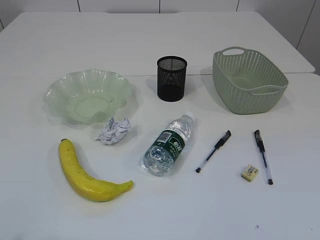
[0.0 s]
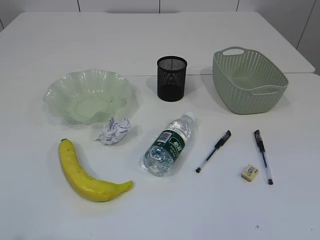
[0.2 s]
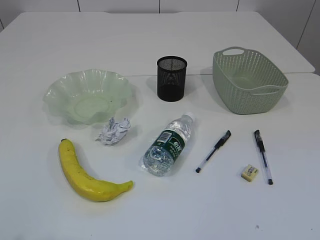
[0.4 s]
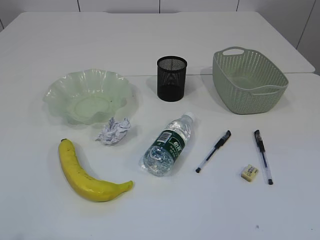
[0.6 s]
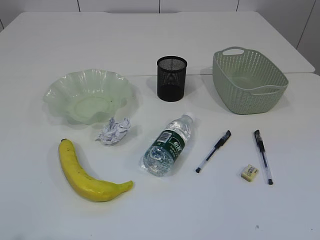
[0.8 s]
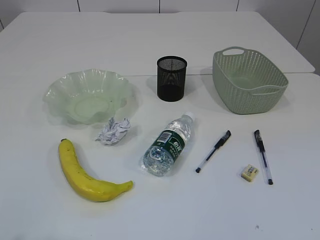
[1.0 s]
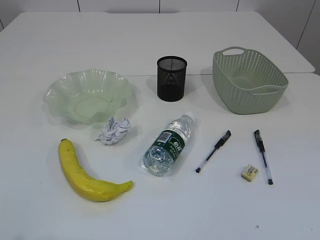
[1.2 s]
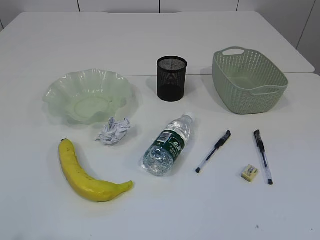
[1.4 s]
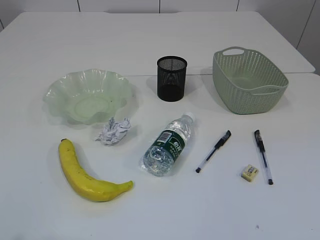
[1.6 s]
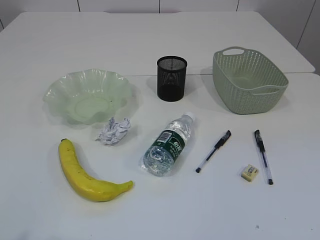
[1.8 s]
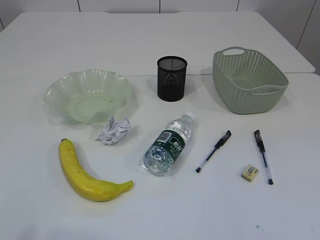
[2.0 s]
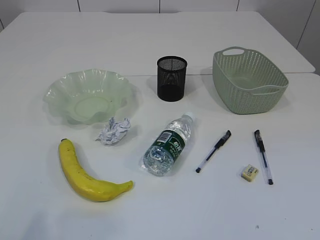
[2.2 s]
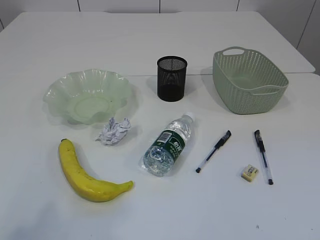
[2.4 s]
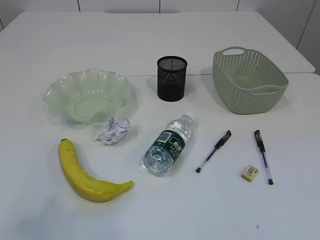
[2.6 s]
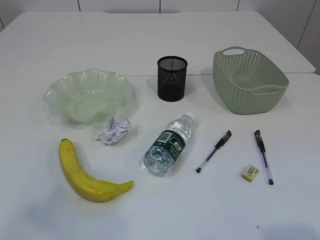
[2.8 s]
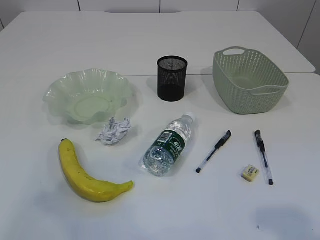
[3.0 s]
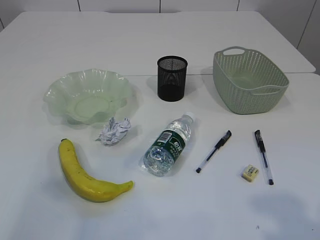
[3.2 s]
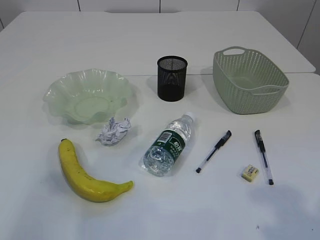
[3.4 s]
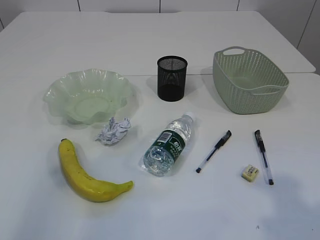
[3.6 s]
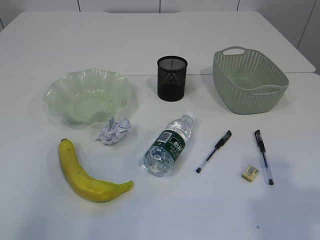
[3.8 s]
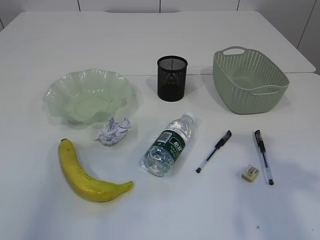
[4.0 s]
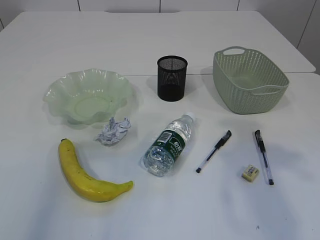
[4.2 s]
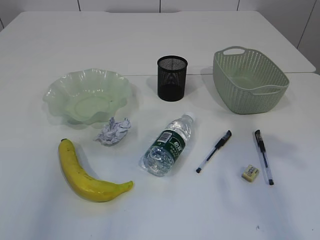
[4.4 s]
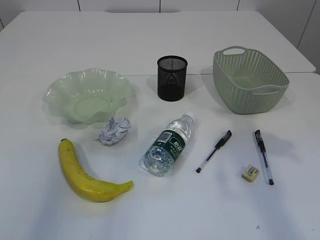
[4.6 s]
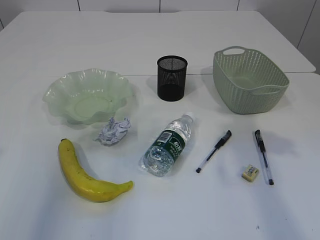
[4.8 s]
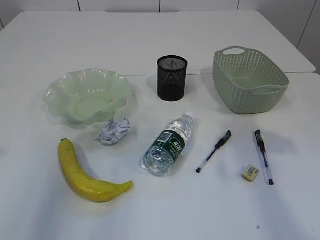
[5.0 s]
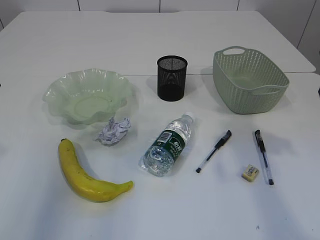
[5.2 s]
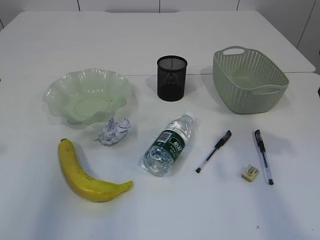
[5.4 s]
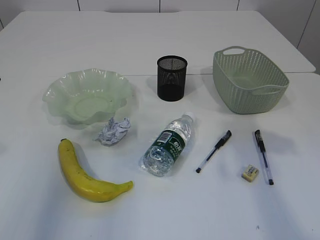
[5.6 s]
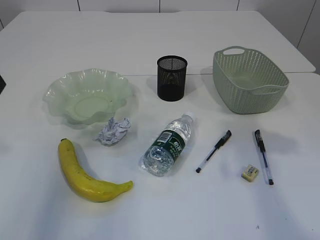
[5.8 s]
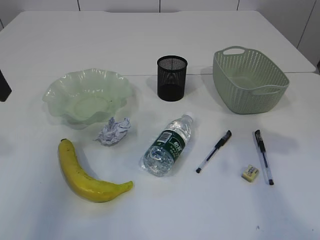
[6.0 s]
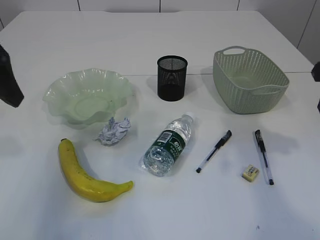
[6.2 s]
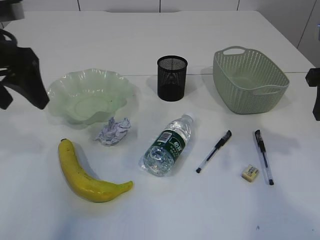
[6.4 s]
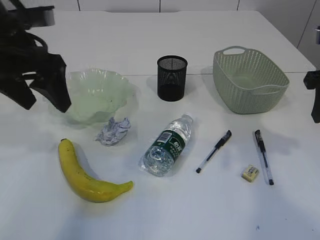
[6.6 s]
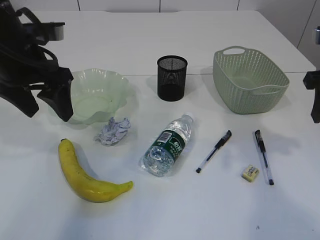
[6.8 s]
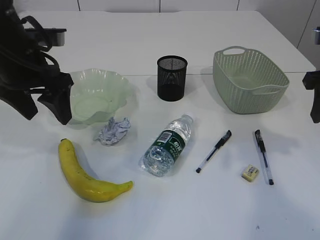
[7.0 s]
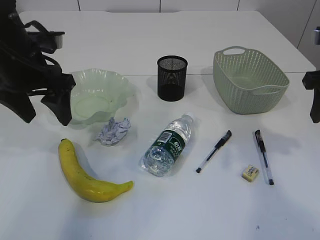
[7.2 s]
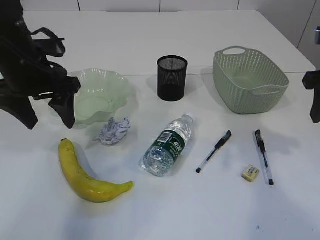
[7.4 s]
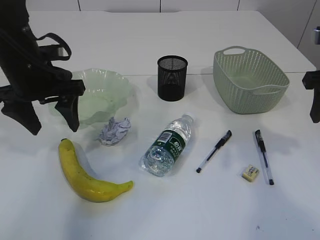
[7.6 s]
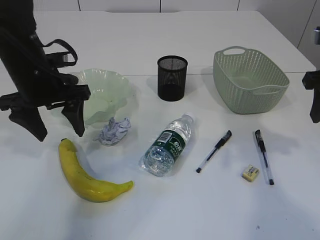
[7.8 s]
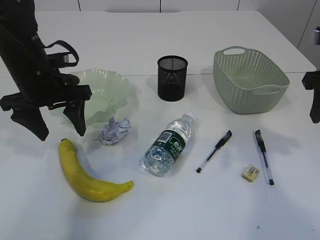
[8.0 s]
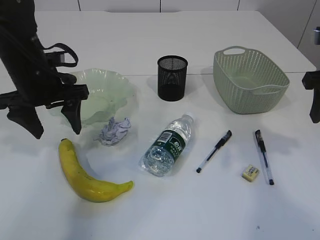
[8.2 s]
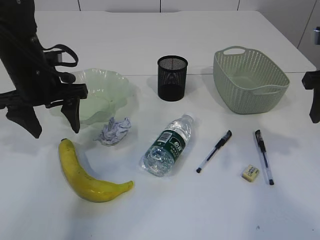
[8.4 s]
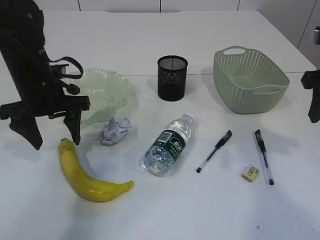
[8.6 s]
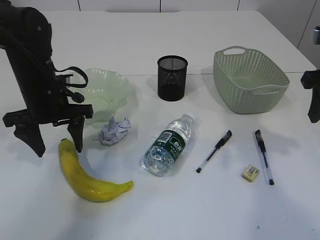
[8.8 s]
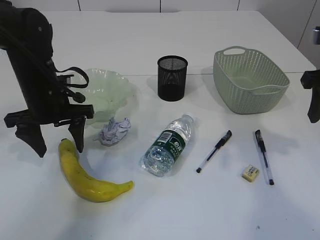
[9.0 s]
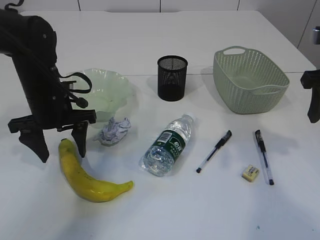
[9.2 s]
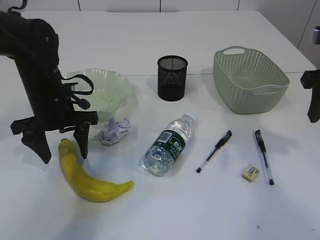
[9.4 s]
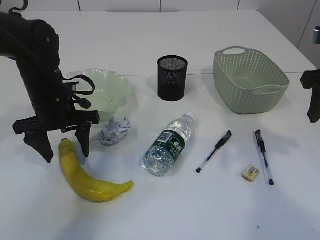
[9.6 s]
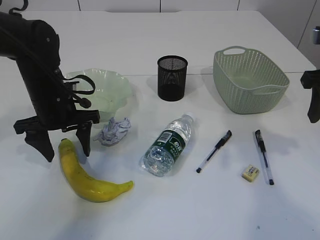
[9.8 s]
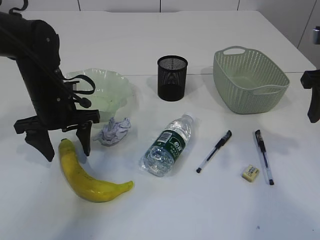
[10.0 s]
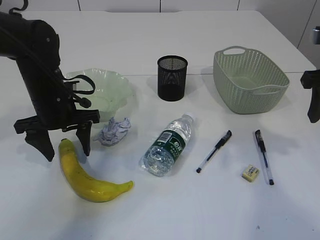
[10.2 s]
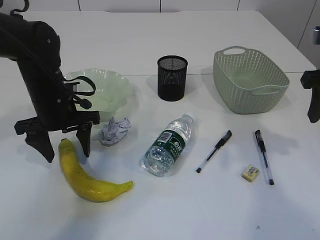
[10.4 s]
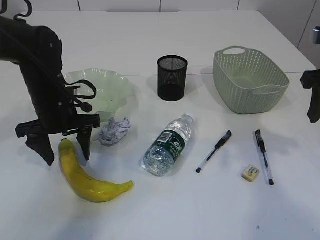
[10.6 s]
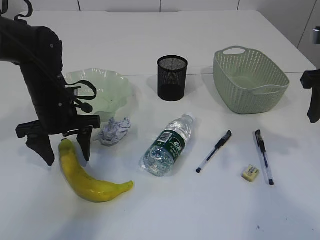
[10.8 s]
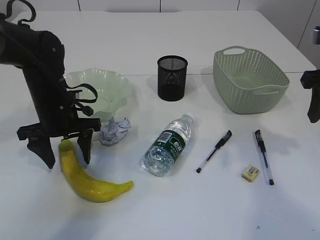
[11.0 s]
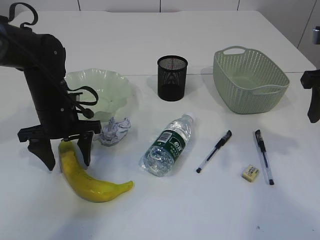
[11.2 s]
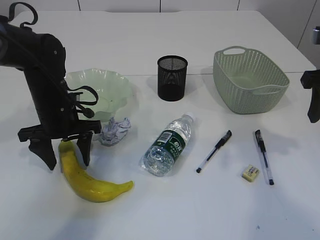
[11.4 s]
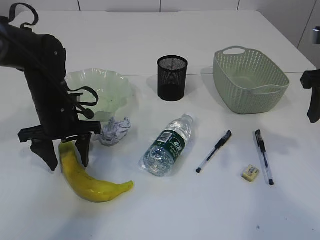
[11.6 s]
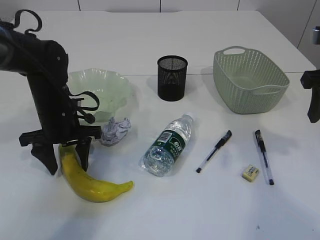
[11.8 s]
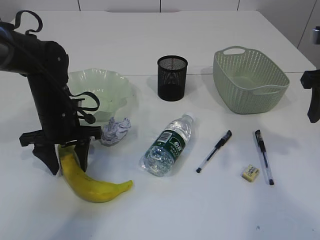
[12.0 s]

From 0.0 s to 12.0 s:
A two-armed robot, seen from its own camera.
From 1.6 s to 3.0 s: The left gripper shifts about 15 cm forward and upward.
From 3.0 s to 4.4 s: The right gripper travels forward by some 20 cm. Meanwhile the left gripper travels forward by approximately 15 cm.
From 6.0 s to 7.6 s: The left gripper heads downward, forward and to the right, covering approximately 15 cm.
From 7.6 s to 9.0 s: The left gripper is displaced downward by roughly 5 cm.
From 9.0 s to 12.0 s: There are only small adjustments of the grippers.

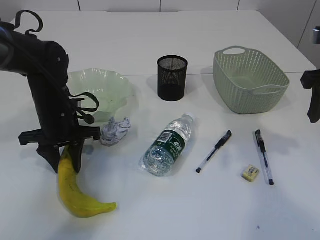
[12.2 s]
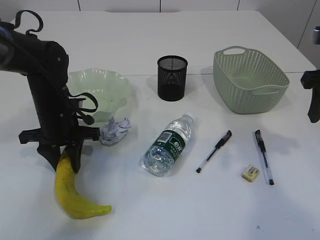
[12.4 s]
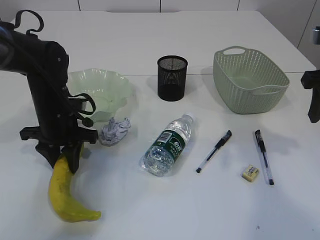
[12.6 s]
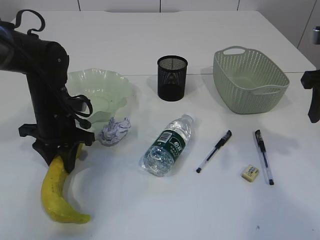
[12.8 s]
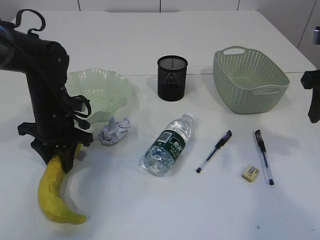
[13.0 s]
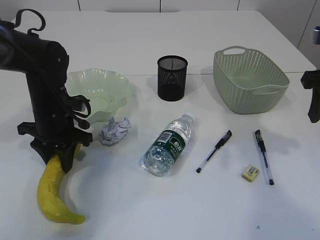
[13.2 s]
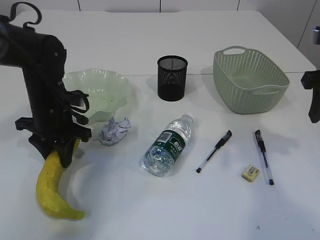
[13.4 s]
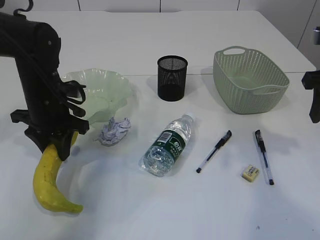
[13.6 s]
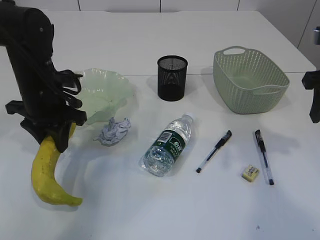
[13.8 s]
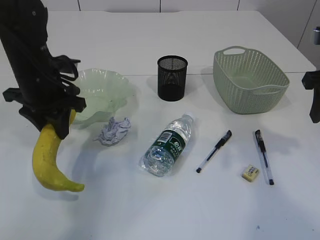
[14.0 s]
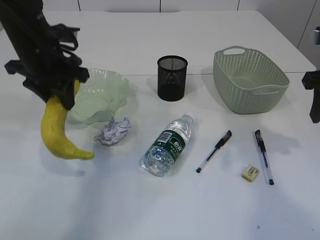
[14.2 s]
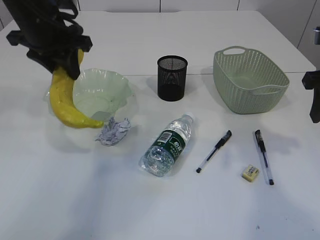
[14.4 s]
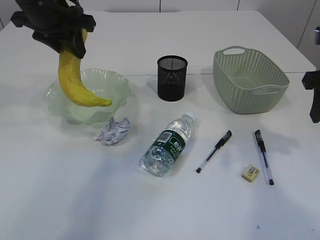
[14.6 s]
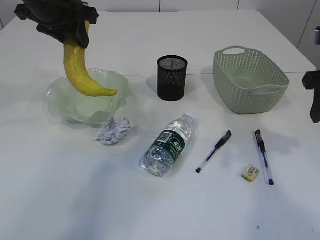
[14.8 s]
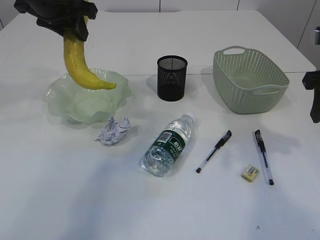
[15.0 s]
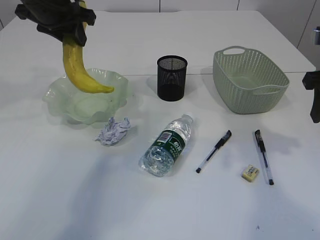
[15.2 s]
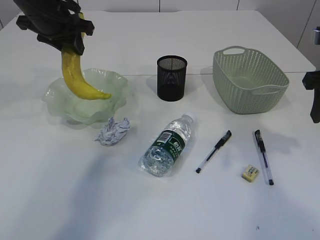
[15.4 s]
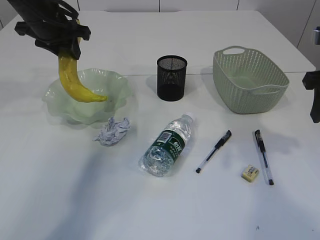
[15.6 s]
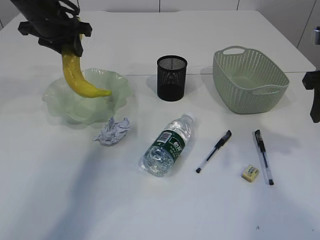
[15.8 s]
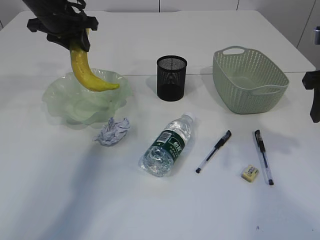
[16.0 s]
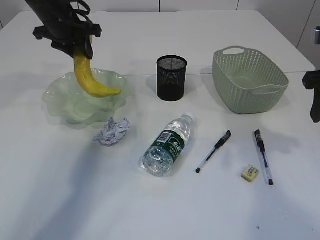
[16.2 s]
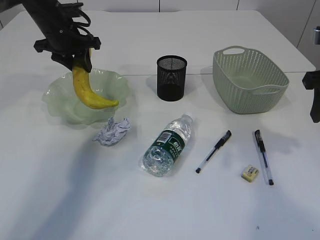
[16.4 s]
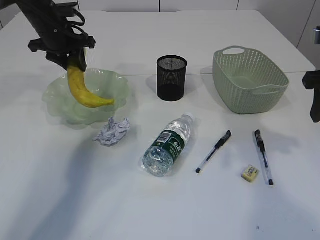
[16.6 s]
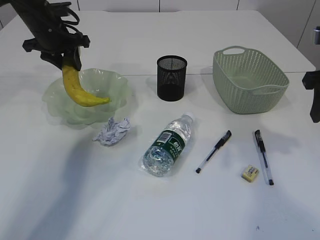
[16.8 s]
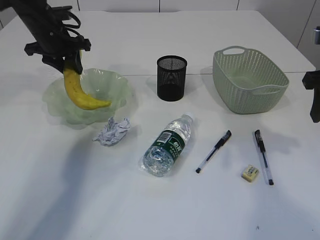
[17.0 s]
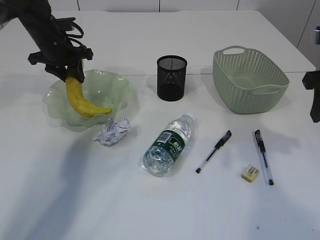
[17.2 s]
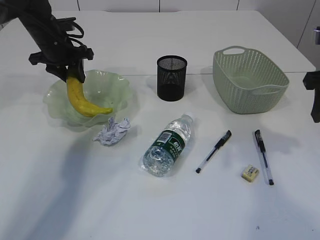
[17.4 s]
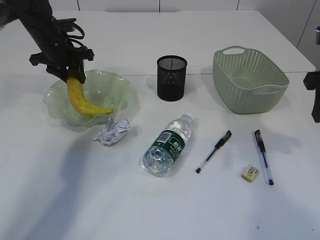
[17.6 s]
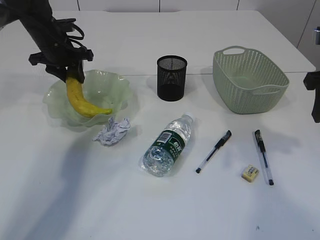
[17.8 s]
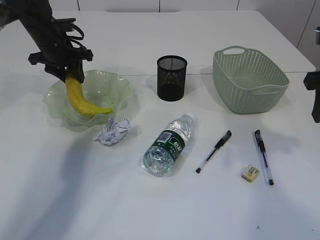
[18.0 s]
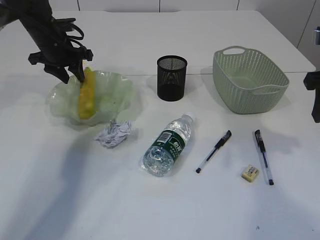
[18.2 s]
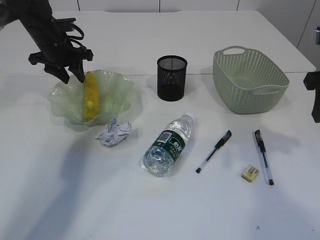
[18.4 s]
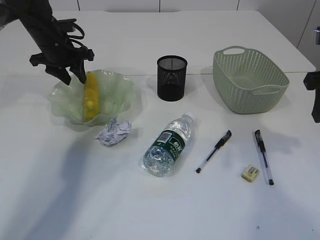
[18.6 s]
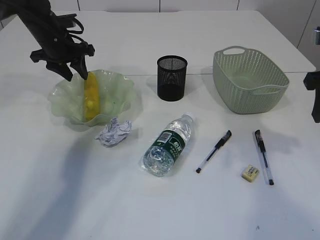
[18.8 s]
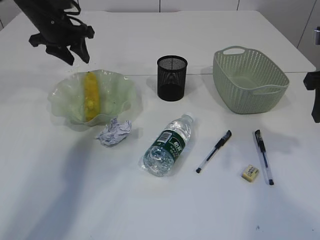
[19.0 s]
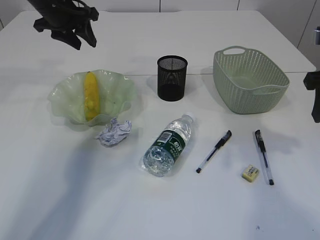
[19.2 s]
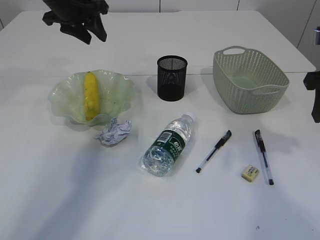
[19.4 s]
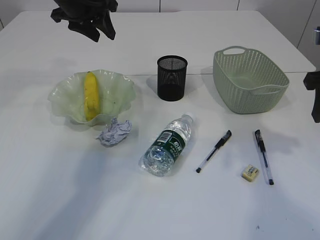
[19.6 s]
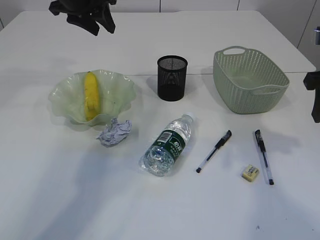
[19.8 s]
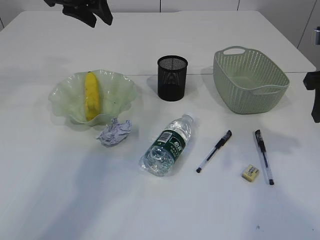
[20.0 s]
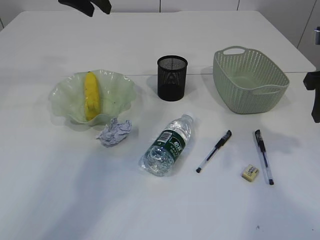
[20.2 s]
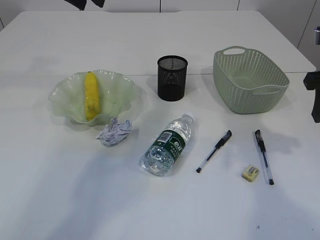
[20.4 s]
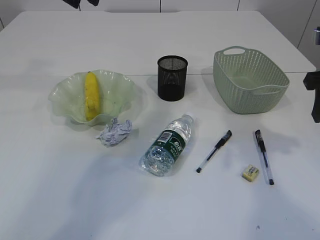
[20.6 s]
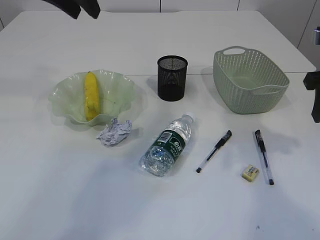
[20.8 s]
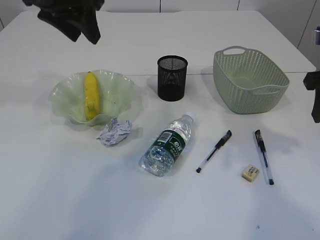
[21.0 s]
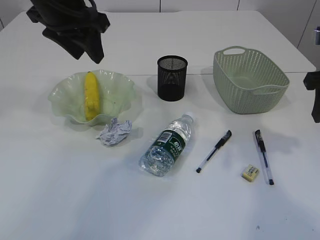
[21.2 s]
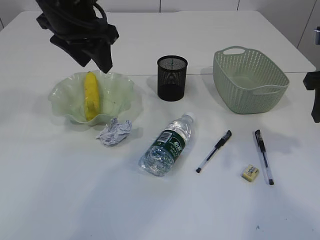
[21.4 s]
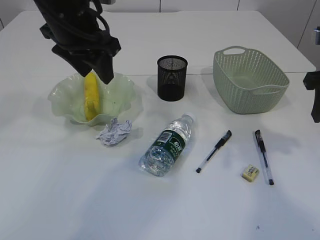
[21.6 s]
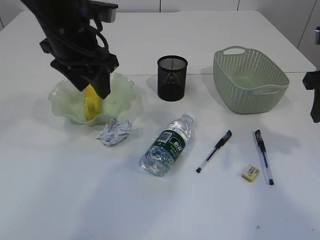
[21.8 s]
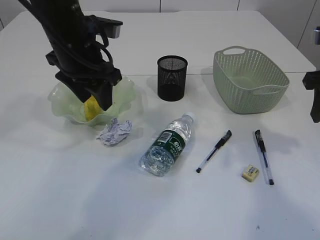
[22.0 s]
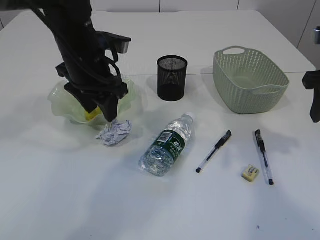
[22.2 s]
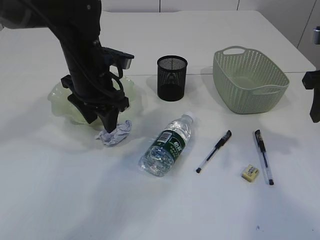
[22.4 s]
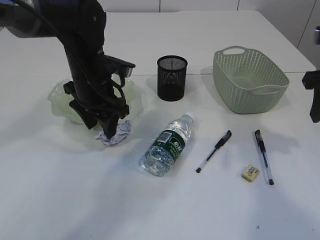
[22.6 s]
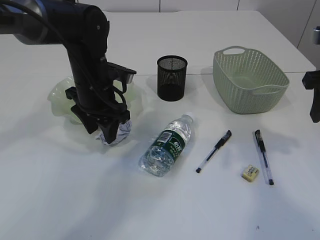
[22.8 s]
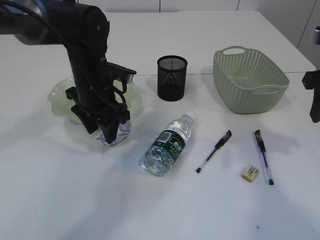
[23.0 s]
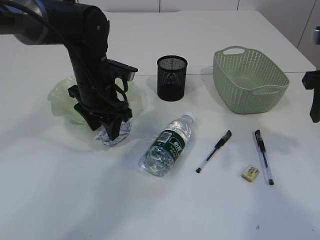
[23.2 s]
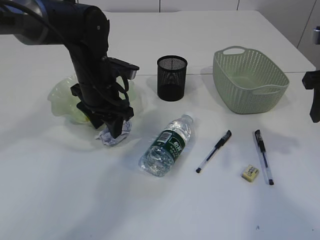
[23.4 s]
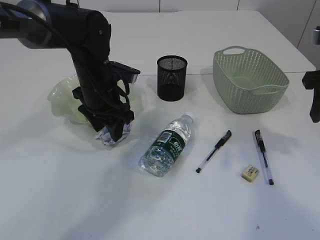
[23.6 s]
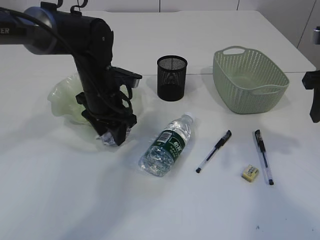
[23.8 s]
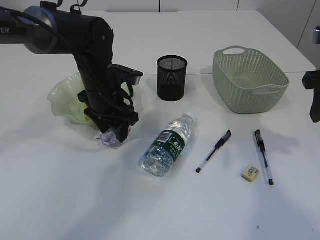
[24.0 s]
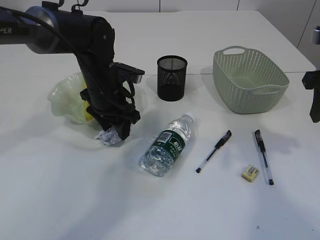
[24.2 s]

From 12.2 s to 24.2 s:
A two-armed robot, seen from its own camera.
Step, from 14.2 s to 19.2 s: Place the banana in the plate.
From 12.2 s to 13.8 s: The left gripper is displaced upward by roughly 5 cm.
From 13.8 s to 15.2 s: The left gripper shifts some 15 cm upward and forward.
From 15.2 s to 16.6 s: The left gripper heads downward and forward, covering about 10 cm.
From 16.6 s to 18.2 s: The grippers make only small movements.
From 18.2 s to 19.8 s: The left gripper is displaced upward and to the right by some 15 cm.
From 19.8 s to 21.2 s: The left gripper shifts some 10 cm backward.
From 21.2 s to 22.6 s: The left gripper goes about 15 cm downward.
From 22.6 s to 24.2 s: The grippers stay close to where they were, moving slightly.
